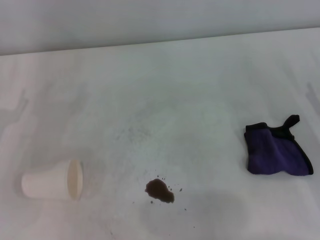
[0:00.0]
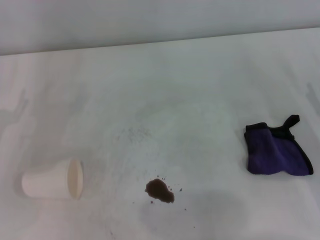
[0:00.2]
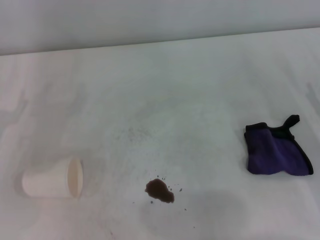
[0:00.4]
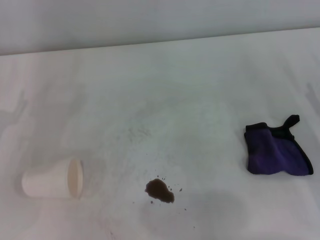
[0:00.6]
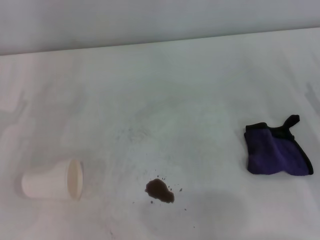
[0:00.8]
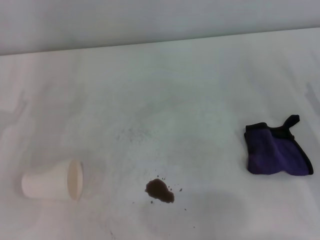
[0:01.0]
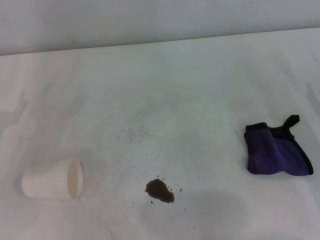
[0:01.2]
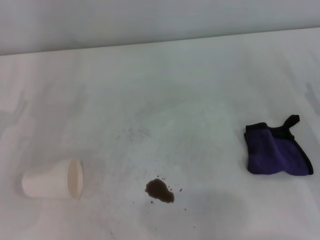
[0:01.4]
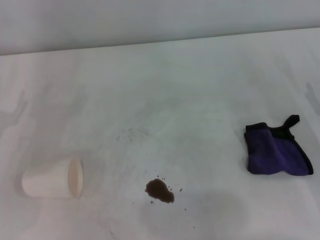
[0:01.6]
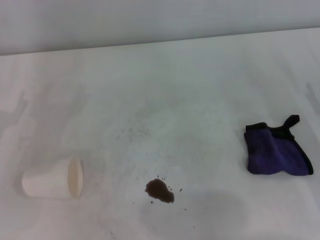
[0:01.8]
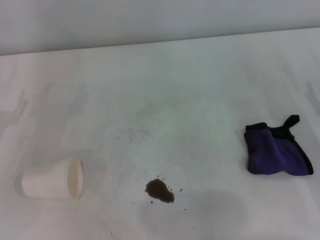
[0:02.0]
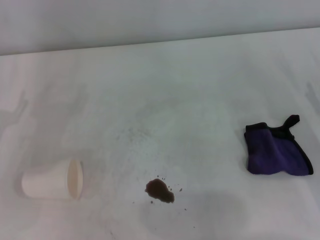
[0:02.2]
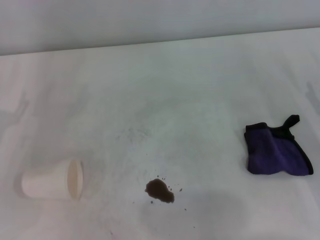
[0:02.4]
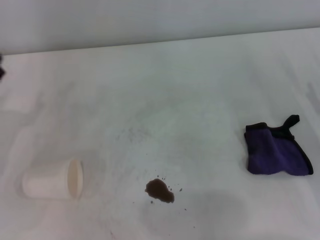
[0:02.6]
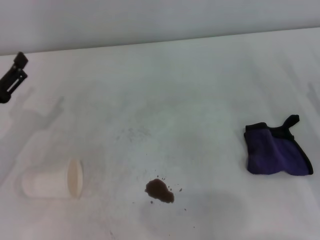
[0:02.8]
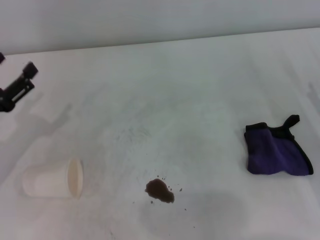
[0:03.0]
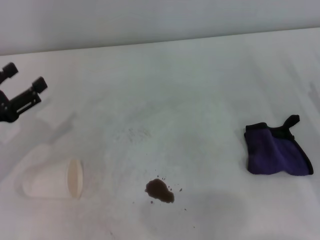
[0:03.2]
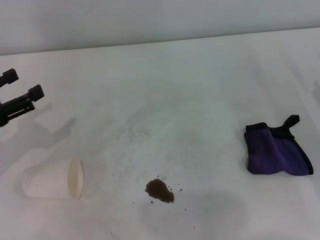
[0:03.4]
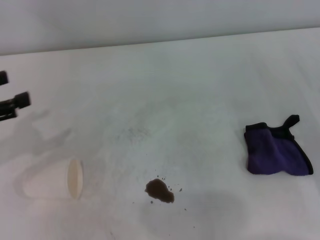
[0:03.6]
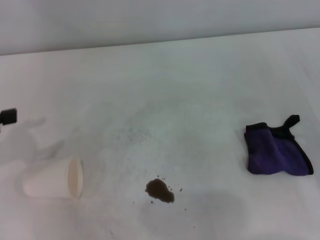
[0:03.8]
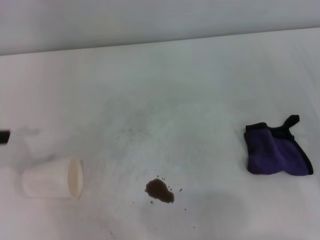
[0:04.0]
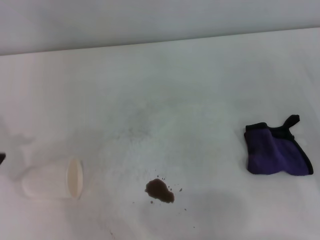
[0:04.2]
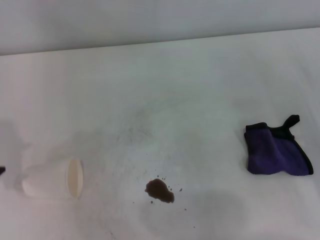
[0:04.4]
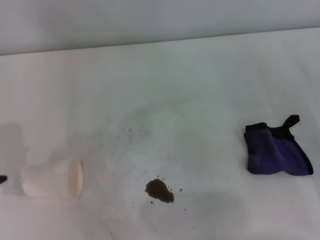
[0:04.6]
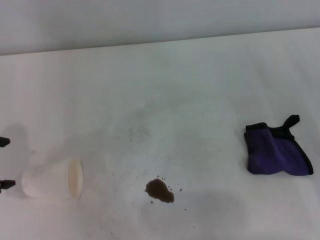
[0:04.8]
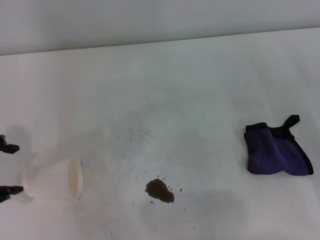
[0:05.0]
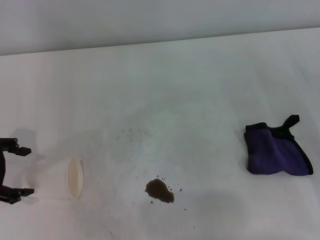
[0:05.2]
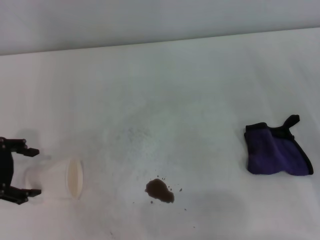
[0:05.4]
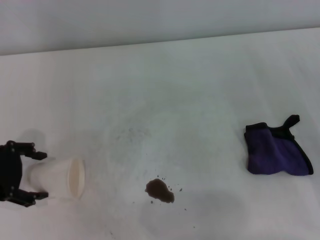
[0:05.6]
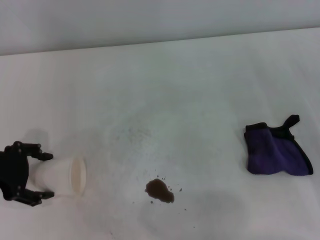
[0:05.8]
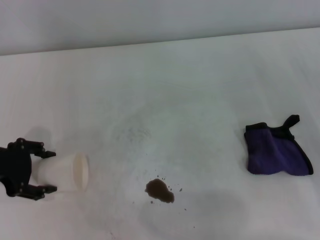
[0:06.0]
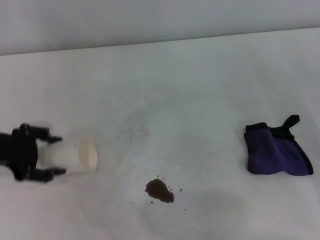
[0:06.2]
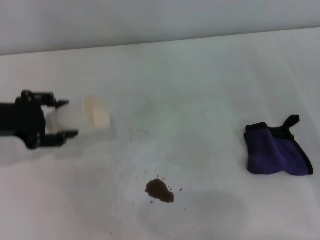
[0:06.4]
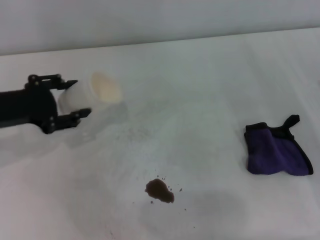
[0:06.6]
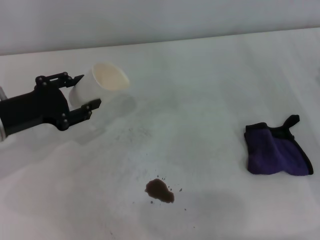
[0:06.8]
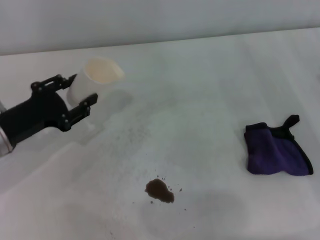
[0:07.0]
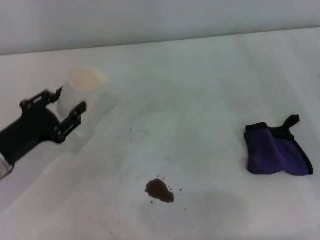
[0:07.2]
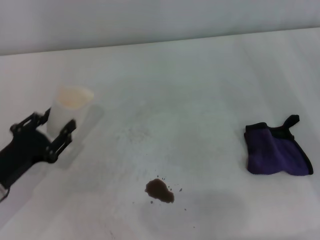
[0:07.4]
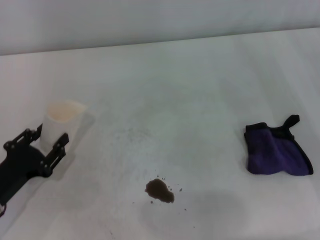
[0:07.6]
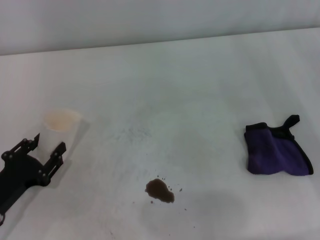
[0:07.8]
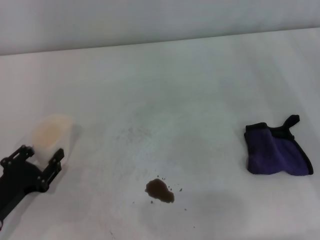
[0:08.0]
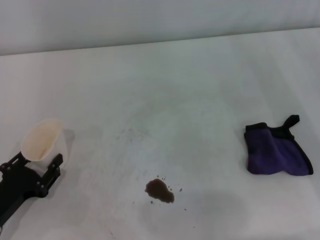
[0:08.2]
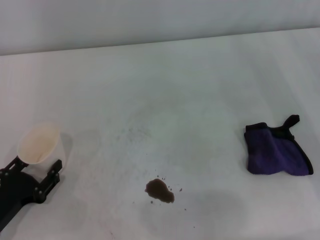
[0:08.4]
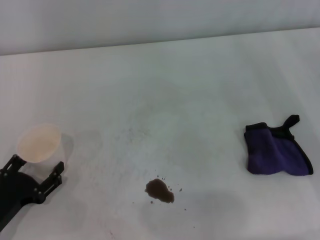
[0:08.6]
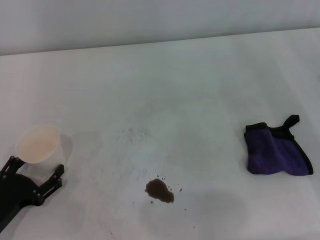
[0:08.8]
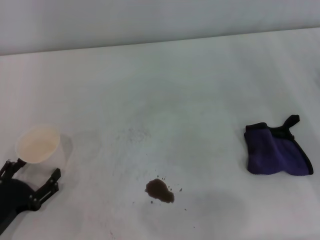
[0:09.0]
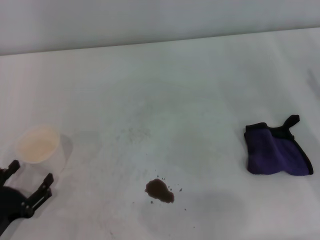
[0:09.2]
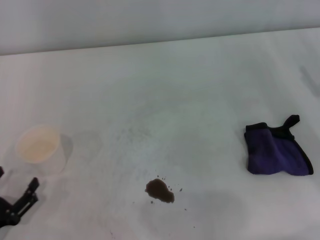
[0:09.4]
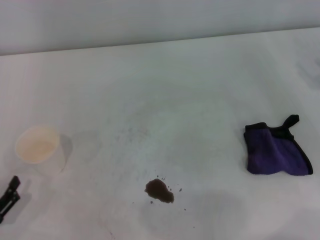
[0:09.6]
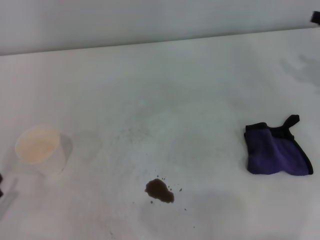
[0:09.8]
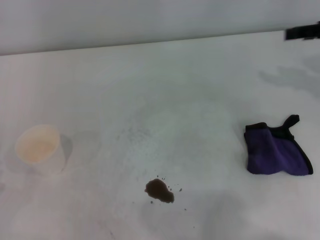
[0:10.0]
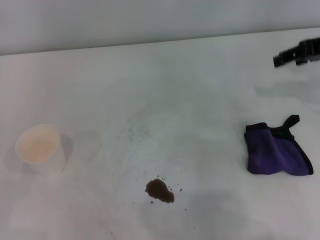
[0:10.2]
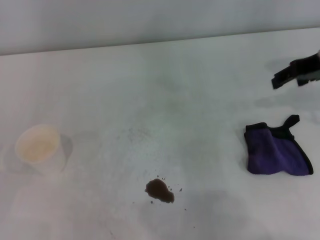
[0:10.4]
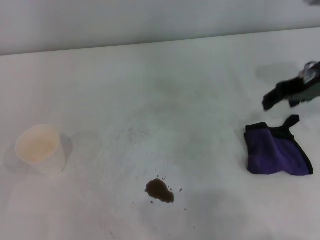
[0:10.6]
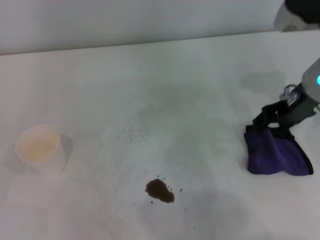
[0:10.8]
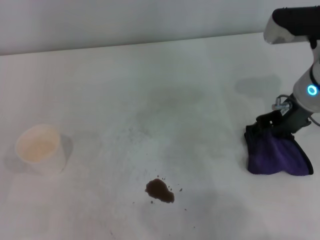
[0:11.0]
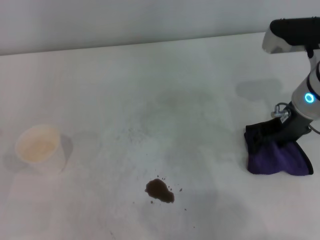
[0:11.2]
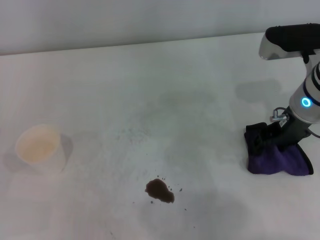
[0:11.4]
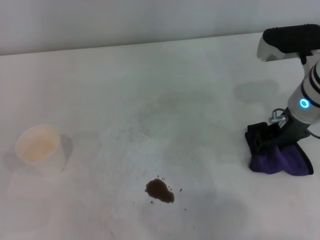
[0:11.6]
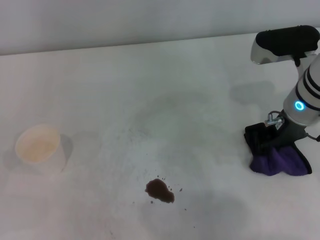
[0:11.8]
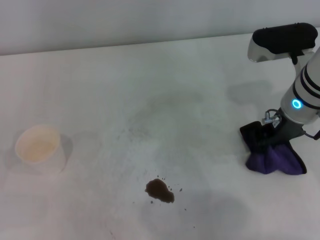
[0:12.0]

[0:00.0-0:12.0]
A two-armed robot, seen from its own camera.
Step, 0:00.0 to 0:05.8: Grasp the paper cup with the left gripper.
Step, 0:06.0 to 0:08.6: Stand the paper cup upright with the left gripper.
Step, 0:08.8 to 0:11.8: Grasp the rag with the right gripper.
0:00.0 to 0:01.6: Both grippers stay put.
0:03.0 to 0:04.4: The left gripper travels upward by approximately 15 cm.
0:04.4 to 0:06.0: The left gripper moves downward and to the right, about 10 cm.
0:06.0 to 0:07.6: The left gripper travels downward and backward by roughly 15 cm, and closes.
0:07.6 to 0:09.0: The left gripper changes place by about 5 cm, and opens.
0:09.0 to 0:10.4: The right gripper goes approximately 20 cm upward, forward and to the left. Meanwhile the left gripper goes approximately 5 cm to the left.
0:10.4 to 0:12.0: The right gripper heads to the left and downward, covering roughly 10 cm, and closes its fingers.

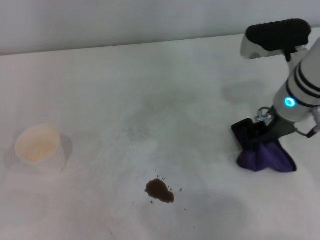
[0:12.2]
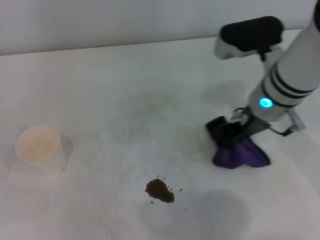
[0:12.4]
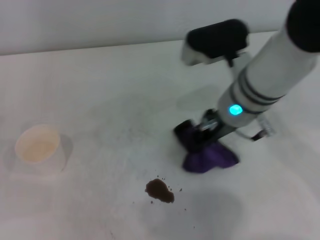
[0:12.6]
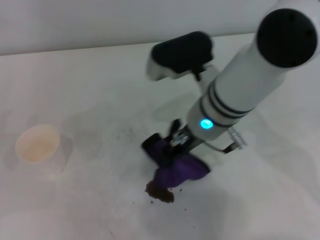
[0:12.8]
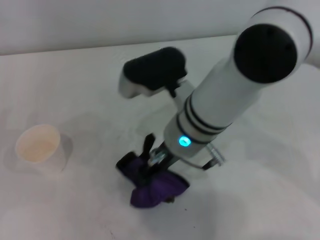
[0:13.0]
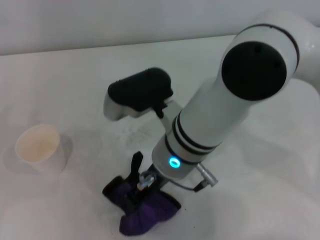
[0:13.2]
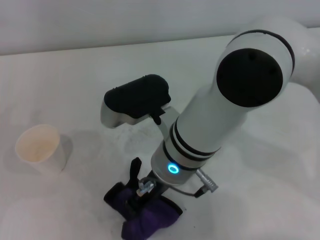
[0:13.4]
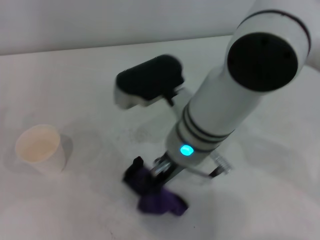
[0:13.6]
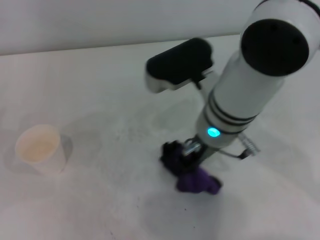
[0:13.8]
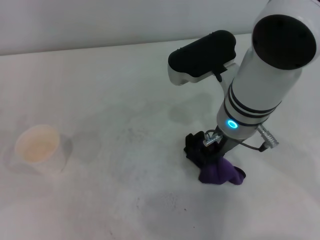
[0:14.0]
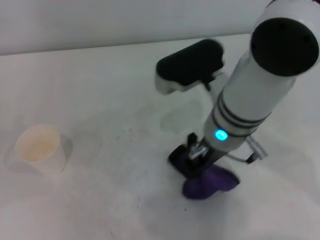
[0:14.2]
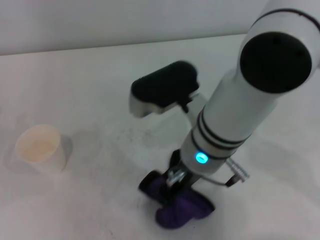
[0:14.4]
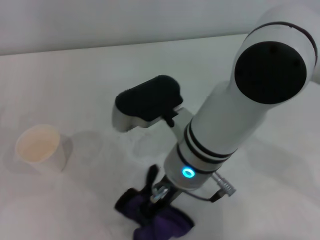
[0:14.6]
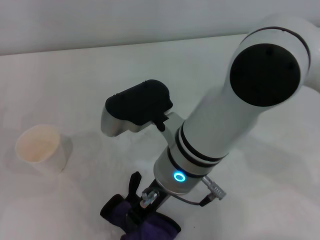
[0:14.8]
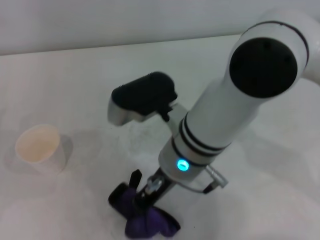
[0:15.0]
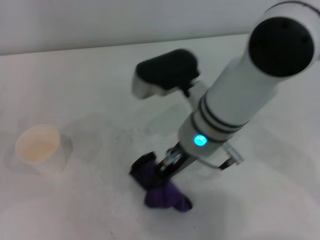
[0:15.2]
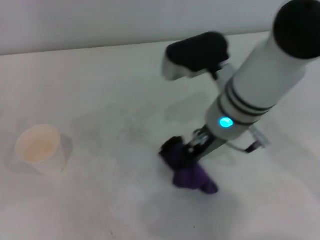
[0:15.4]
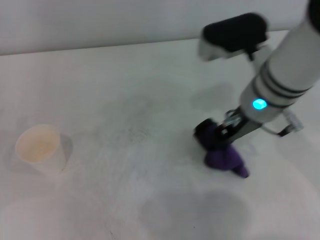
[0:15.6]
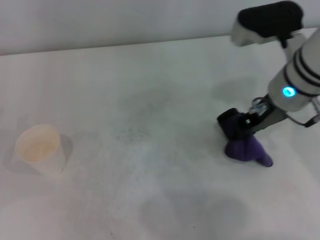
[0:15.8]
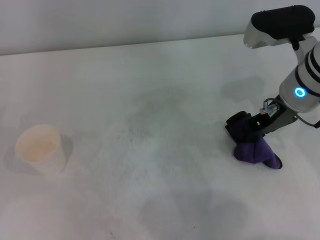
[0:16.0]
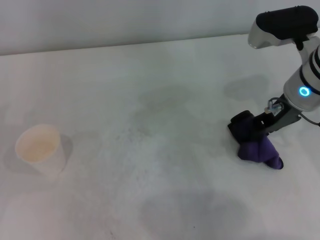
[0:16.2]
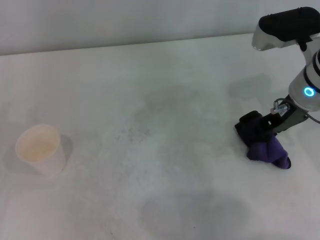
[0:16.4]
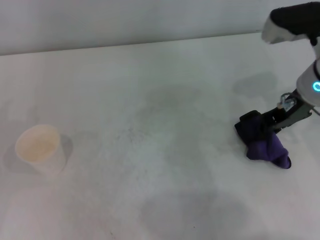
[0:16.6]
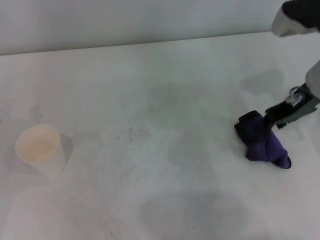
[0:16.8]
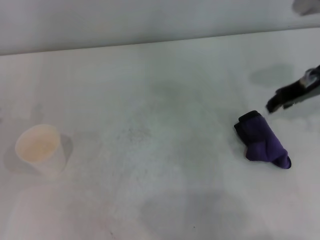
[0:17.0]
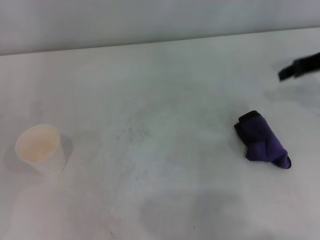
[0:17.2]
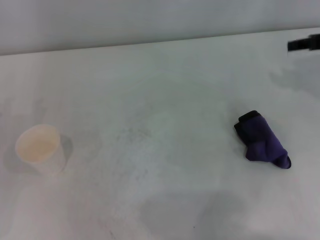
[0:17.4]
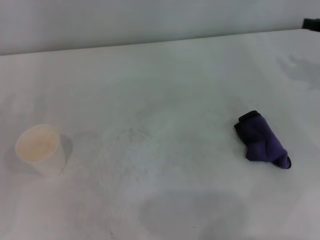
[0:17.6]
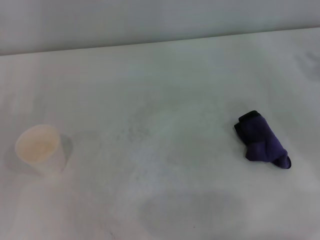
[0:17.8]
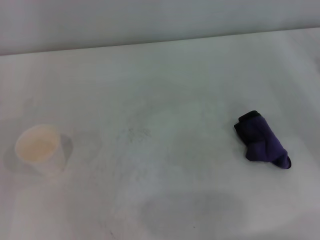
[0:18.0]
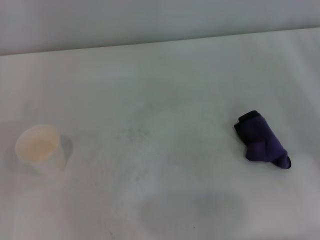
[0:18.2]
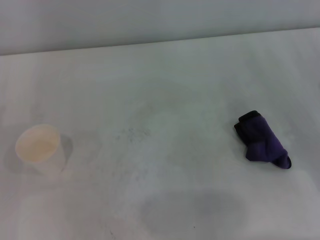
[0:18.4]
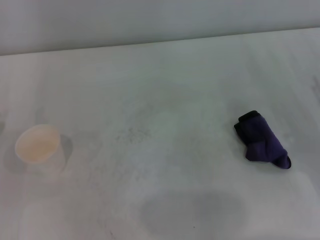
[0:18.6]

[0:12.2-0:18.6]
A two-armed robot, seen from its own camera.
Step, 0:12.2 to 0:15.6: Wipe the stains off the table with the right gripper.
Step, 0:15.8 to 0:16.4: Place the rag on the table with the right gripper.
0:12.2 to 0:13.8: The right gripper goes roughly 10 cm to the left.
0:15.4 to 0:17.0: The right gripper shifts about 15 cm to the right.
0:17.0 to 0:18.6: The right gripper heads downward, backward and to the right, covering about 20 cm.
